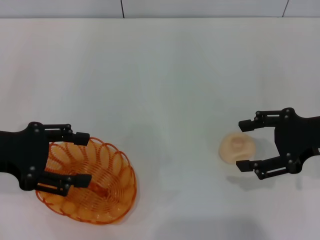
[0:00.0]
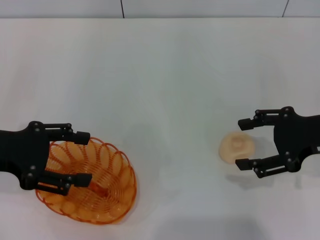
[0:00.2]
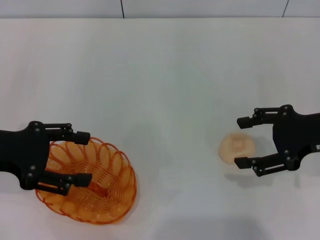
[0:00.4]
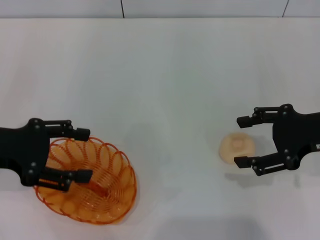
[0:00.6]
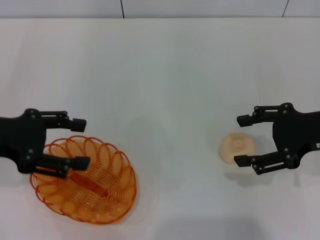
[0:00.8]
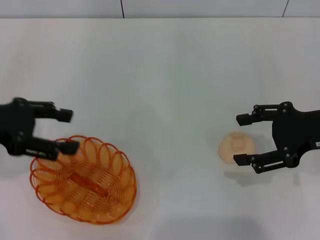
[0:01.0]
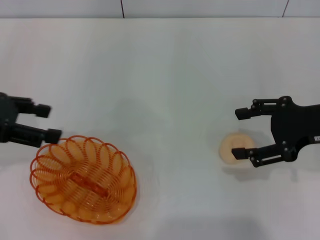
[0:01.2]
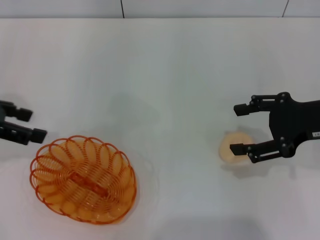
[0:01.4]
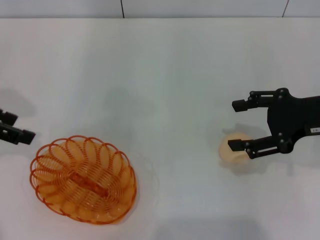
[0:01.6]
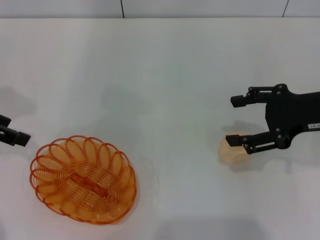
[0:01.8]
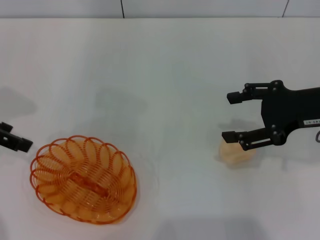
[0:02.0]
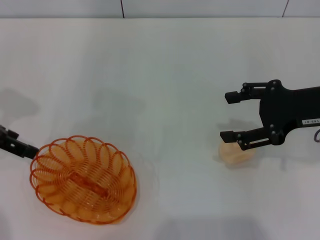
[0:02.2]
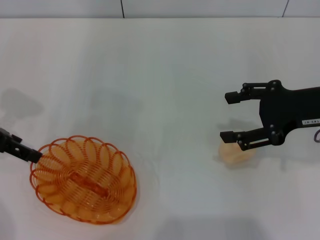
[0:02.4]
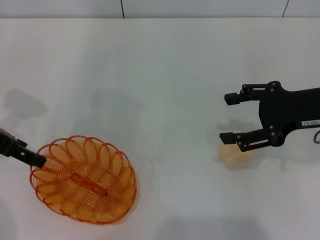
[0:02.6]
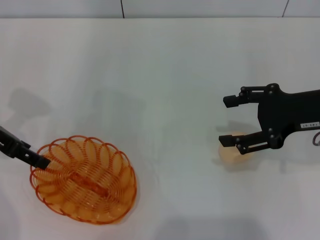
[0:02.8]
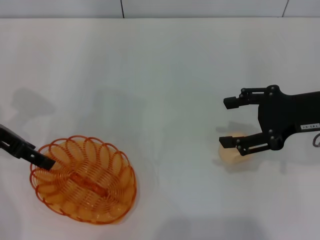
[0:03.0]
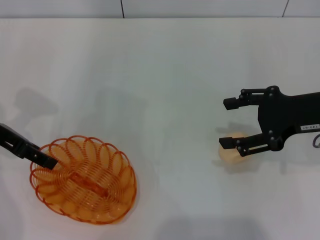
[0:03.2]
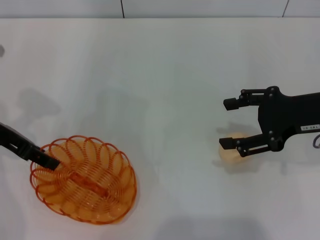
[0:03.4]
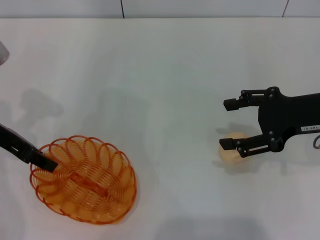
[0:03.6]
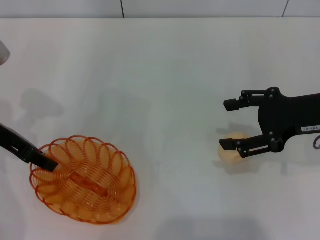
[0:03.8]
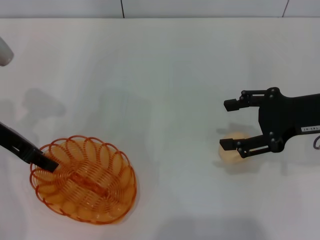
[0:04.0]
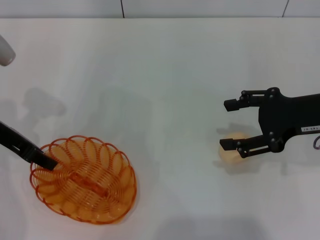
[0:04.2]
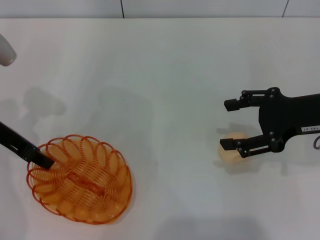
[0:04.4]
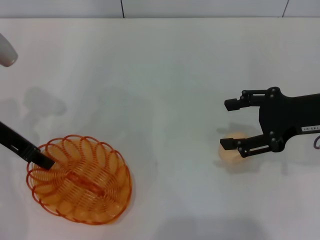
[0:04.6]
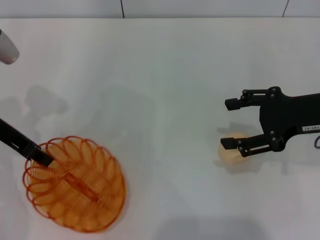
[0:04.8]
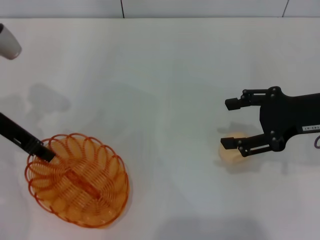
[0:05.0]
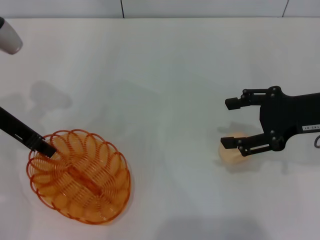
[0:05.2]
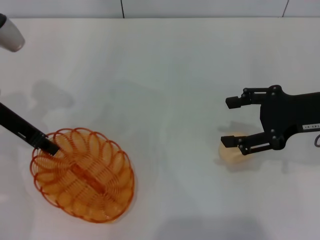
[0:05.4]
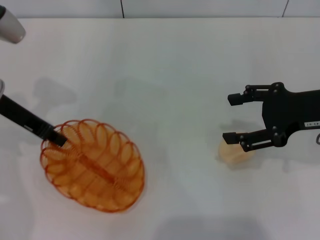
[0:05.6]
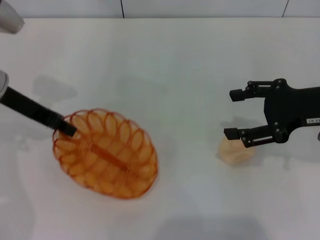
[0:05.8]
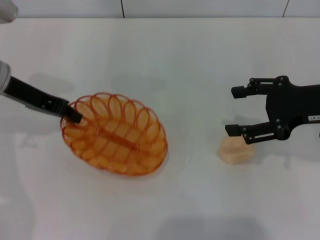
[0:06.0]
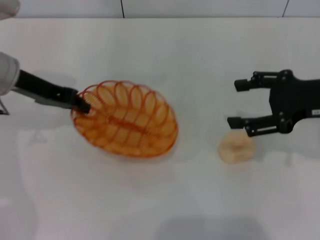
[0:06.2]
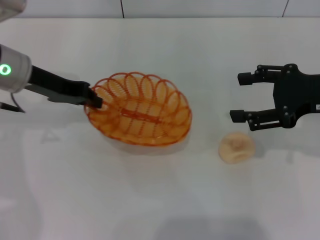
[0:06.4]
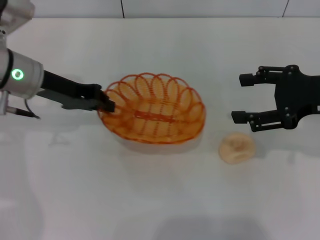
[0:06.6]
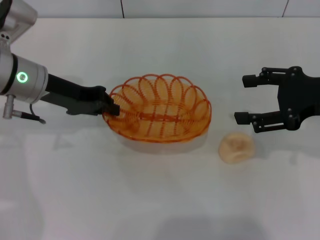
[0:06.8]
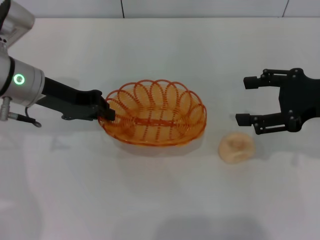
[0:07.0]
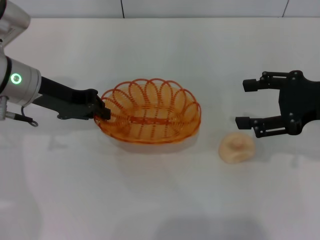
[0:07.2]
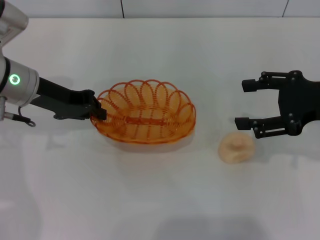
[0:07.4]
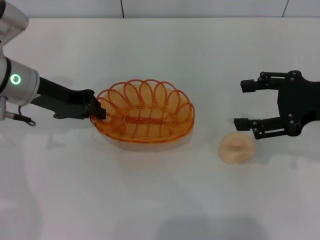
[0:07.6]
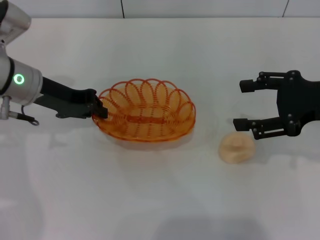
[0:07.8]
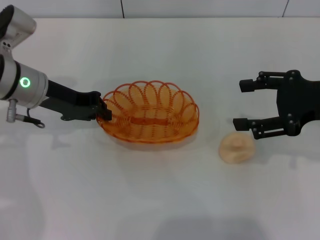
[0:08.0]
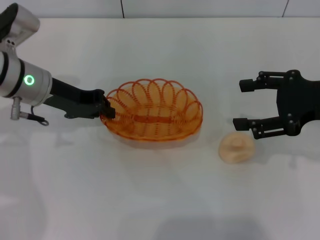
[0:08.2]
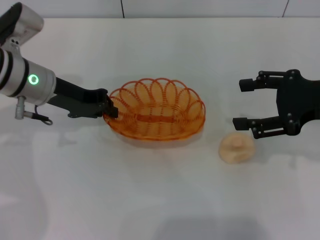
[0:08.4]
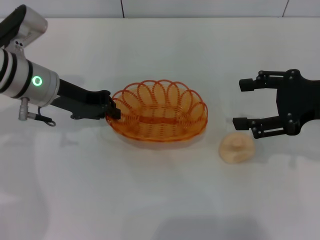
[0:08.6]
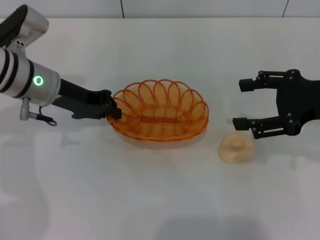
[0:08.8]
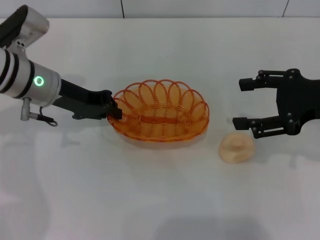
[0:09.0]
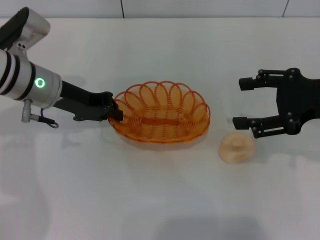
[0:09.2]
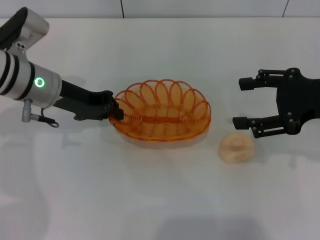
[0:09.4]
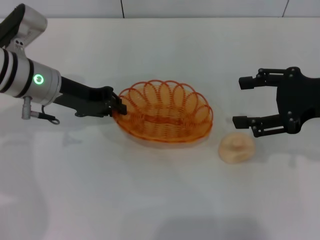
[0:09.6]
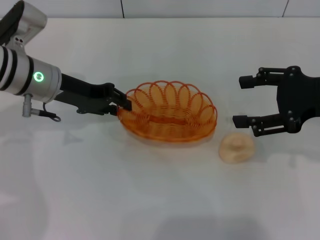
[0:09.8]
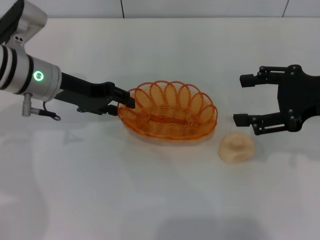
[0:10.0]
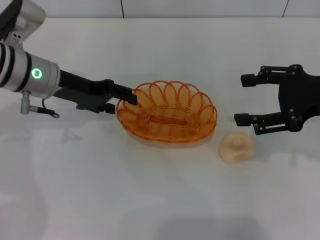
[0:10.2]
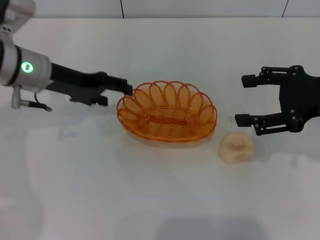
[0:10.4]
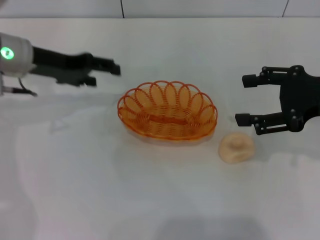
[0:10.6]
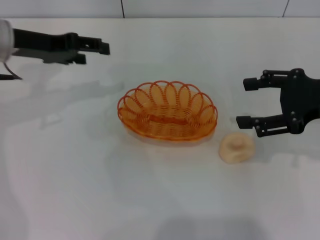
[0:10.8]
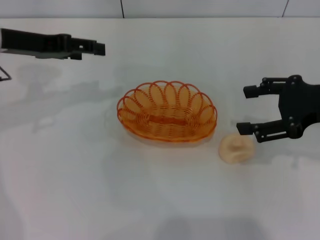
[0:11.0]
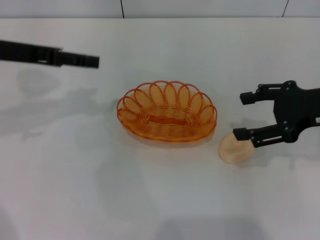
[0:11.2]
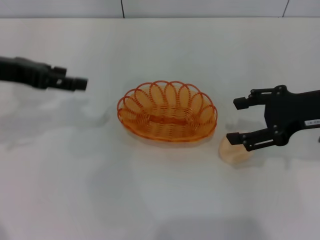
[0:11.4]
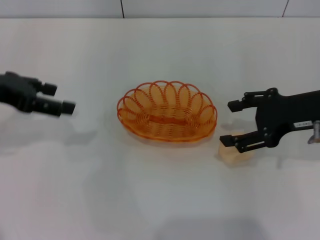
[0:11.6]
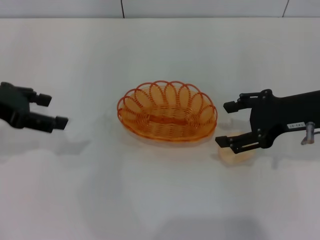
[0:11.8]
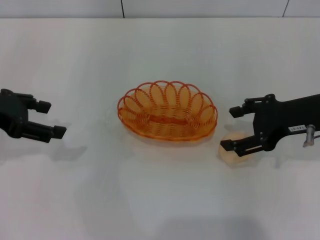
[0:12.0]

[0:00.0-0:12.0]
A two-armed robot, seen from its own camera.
Step, 0:00.0 to 0:06.2: Pick up the basket with the left gripper.
Step, 0:06.4 to 0:10.6: Place the basket in the center of view with the left gripper.
0:00.0 to 0:01.6: The left gripper goes about 5 cm forward and upward.
0:01.6 to 0:03.0: The left gripper shifts roughly 5 cm downward.
0:03.0 to 0:04.4: The left gripper closes up.
0:07.6 to 0:09.0: There are only small adjustments of the grippers.
0:09.0 to 0:10.4: The left gripper opens.
0:10.4 to 0:12.0: The left gripper shifts roughly 10 cm to the left and backward.

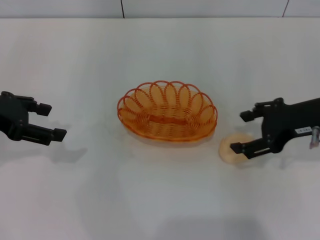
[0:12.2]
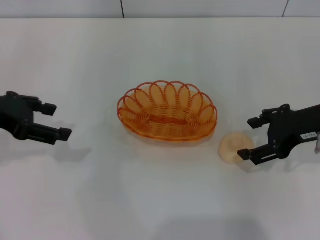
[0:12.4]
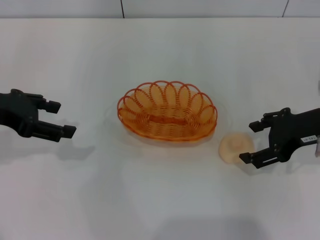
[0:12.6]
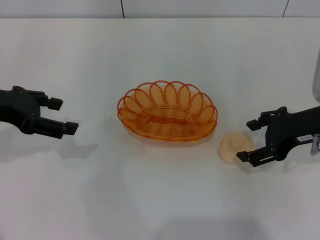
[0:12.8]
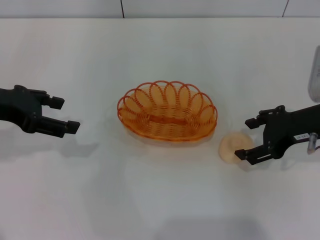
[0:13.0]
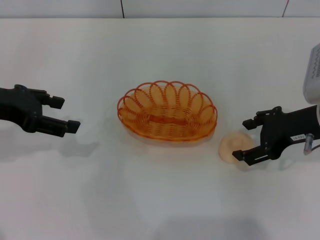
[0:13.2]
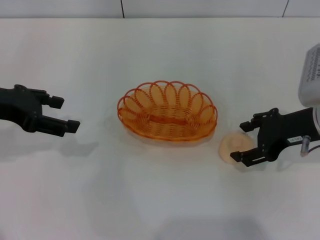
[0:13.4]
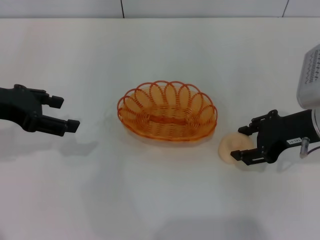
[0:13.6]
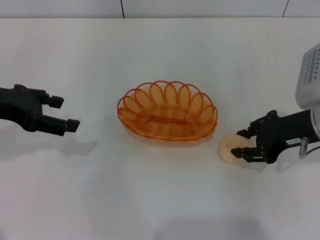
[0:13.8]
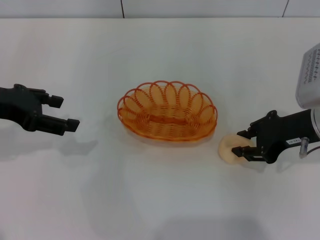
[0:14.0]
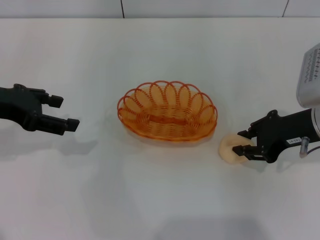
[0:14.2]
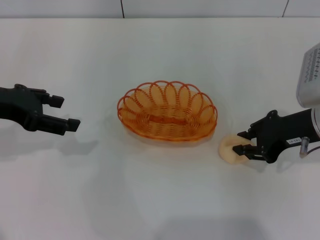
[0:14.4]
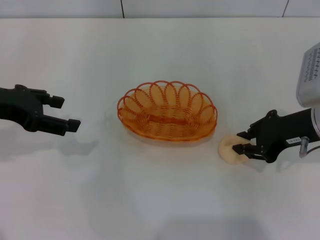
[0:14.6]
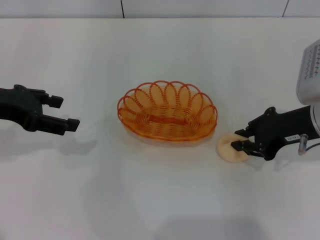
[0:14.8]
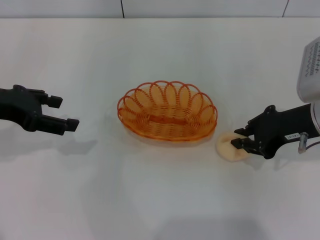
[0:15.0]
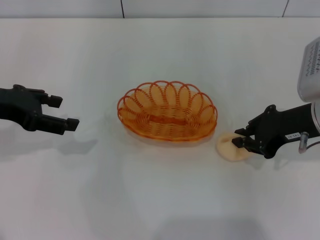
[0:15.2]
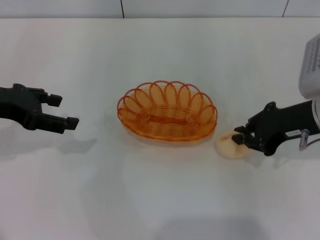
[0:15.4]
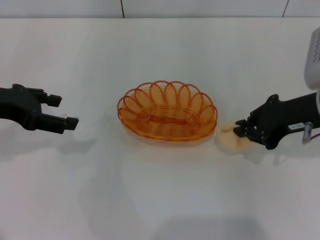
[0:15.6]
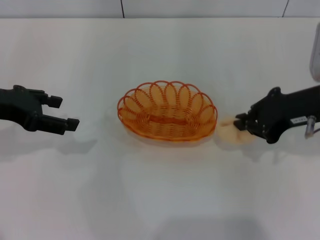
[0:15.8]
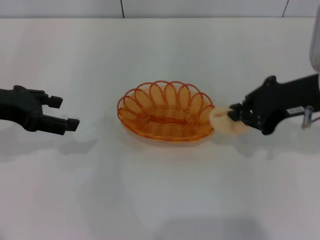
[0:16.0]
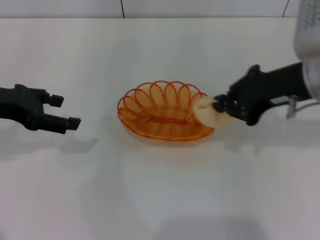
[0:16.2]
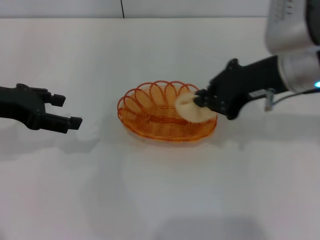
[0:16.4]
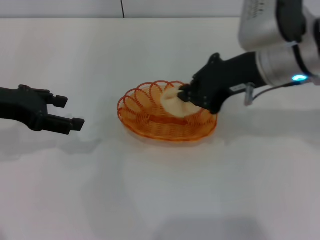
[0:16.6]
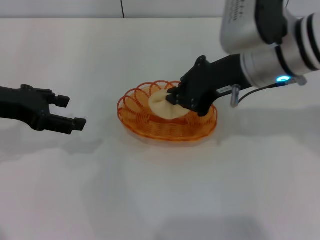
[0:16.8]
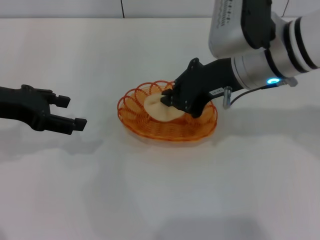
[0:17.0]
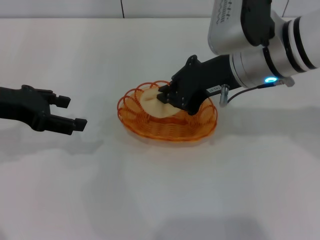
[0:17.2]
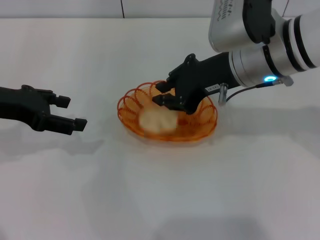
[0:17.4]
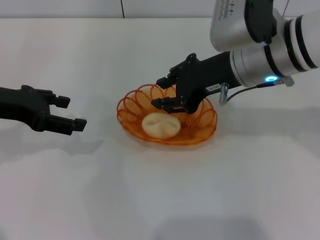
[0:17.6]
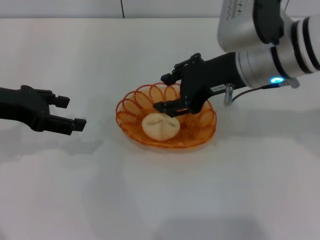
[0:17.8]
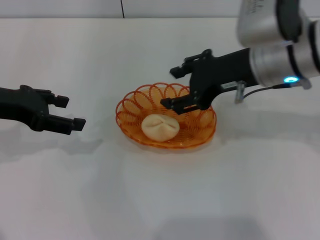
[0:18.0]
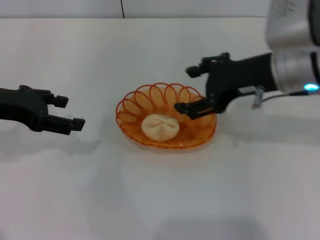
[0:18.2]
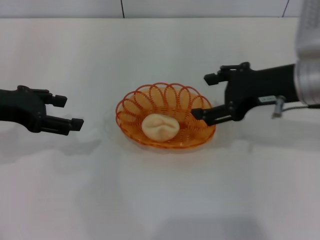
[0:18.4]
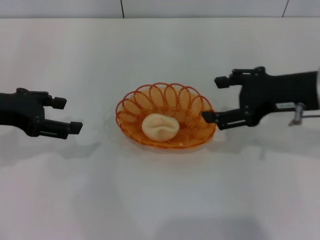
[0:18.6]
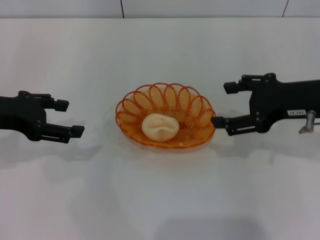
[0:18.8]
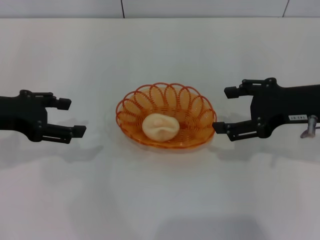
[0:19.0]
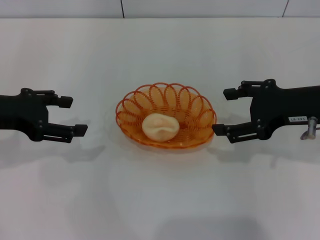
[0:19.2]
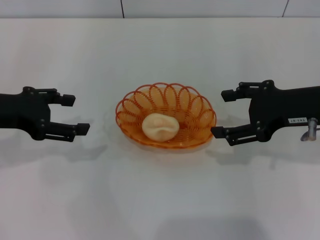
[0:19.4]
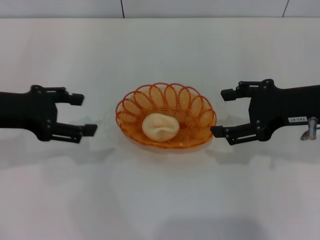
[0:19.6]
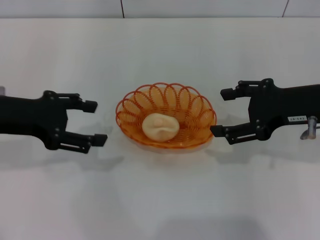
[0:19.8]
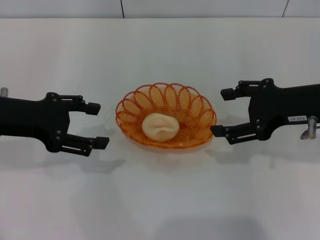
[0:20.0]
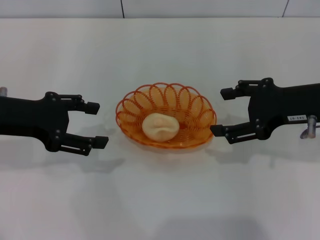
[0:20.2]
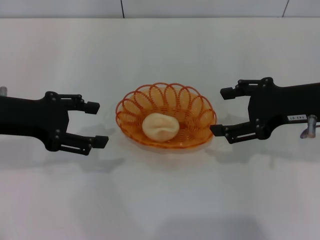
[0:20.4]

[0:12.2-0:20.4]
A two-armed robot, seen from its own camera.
Step, 0:12.2 to 0:15.8: Pick up the egg yolk pastry with the right gripper.
Step, 0:16.0 to 0:18.6: Place the egg yolk pastry into the basket with the right gripper.
0:12.2 to 0:13.8: The grippers move only a little.
0:13.8 to 0:15.4: The right gripper closes.
0:15.4 to 0:17.2: The right gripper heads to the left and upward, covering some 10 cm.
0:17.2 to 0:18.8: The right gripper heads to the right, covering approximately 10 cm, and opens up.
0:18.8 to 0:20.4: The grippers make only small movements.

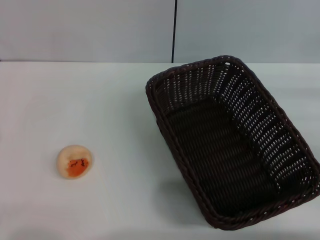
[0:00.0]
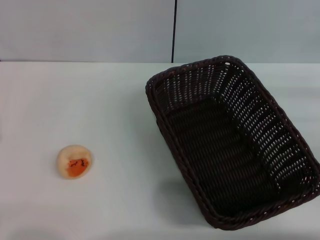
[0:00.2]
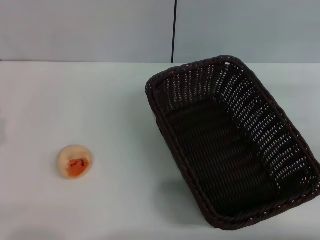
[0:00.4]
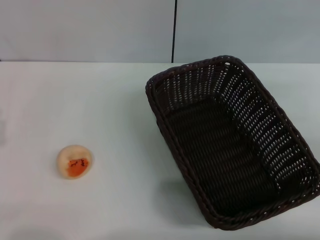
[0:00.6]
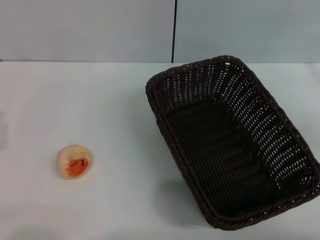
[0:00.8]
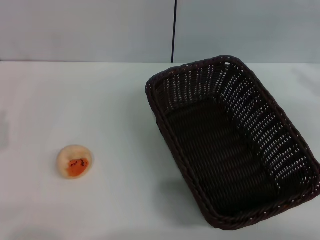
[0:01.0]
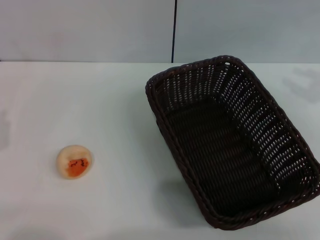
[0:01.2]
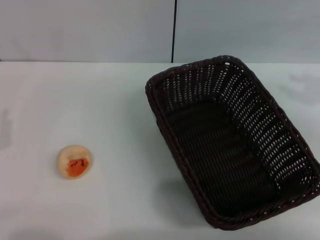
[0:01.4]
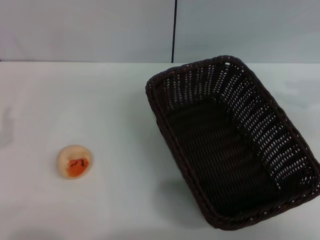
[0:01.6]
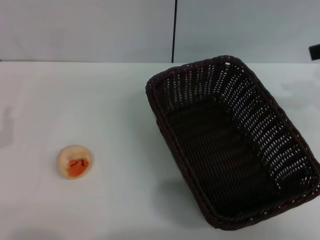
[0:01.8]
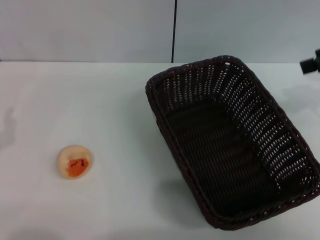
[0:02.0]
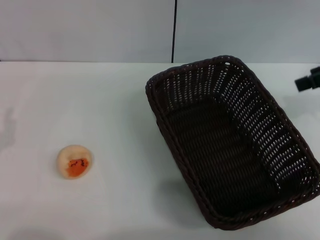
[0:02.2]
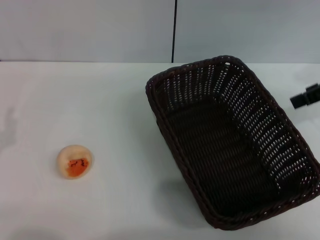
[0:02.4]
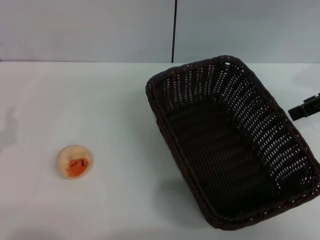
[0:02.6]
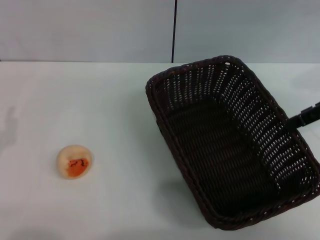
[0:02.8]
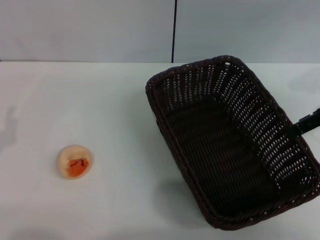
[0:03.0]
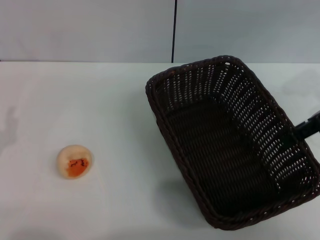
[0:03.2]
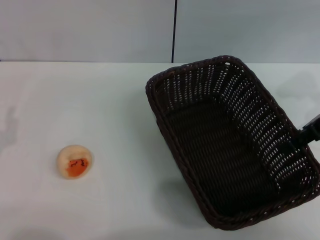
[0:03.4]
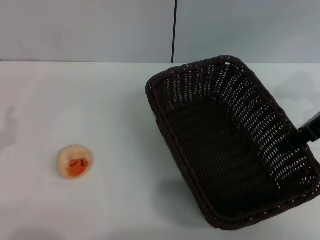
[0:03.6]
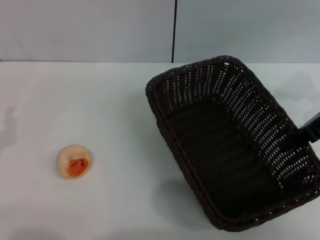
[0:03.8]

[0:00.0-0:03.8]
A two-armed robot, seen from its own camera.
0:01.2 to 0:02.6: The right gripper moves to the left, approximately 5 cm.
0:02.6 to 0:03.8: The right gripper changes place by approximately 5 cm, and closes its fingers.
